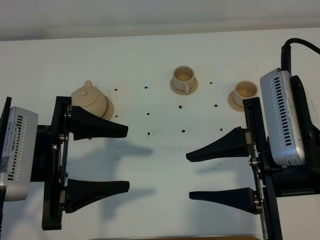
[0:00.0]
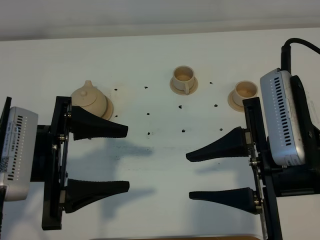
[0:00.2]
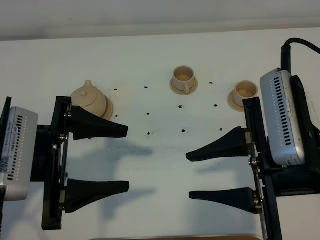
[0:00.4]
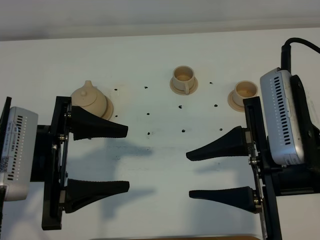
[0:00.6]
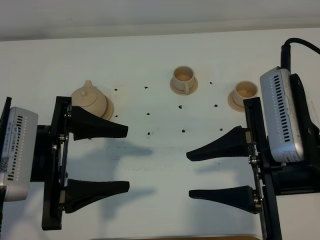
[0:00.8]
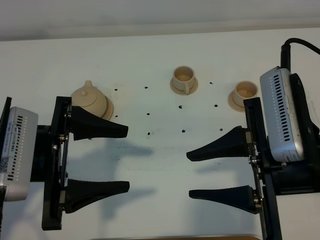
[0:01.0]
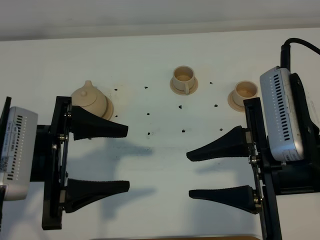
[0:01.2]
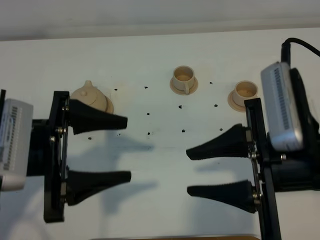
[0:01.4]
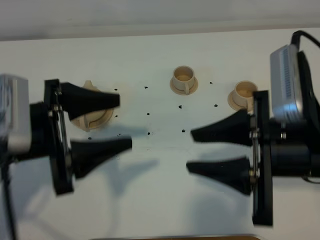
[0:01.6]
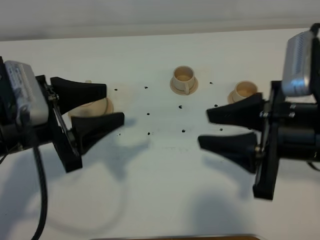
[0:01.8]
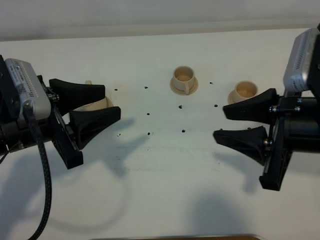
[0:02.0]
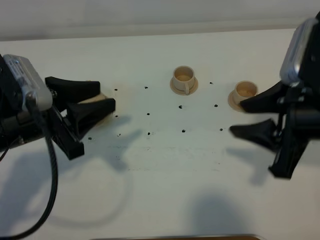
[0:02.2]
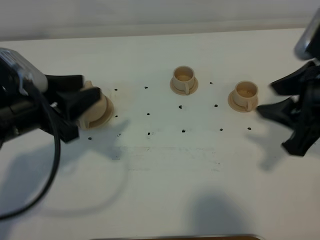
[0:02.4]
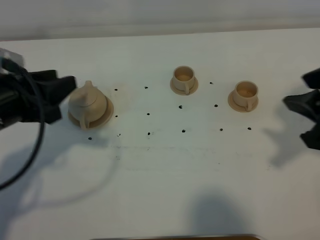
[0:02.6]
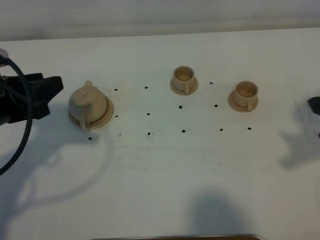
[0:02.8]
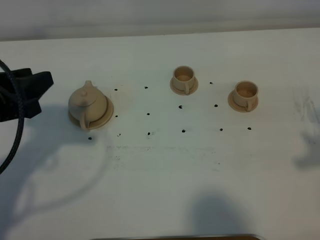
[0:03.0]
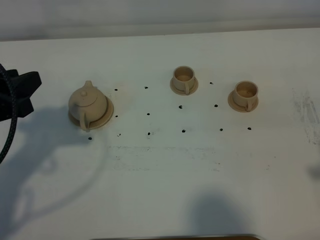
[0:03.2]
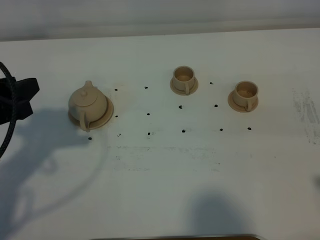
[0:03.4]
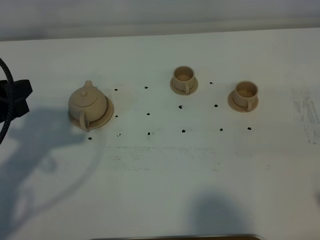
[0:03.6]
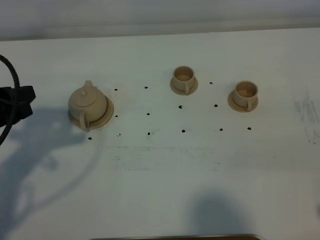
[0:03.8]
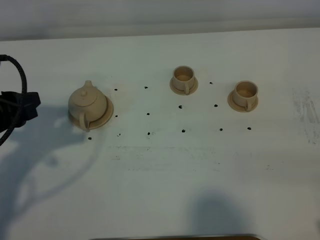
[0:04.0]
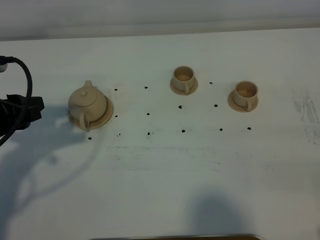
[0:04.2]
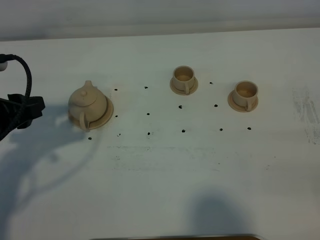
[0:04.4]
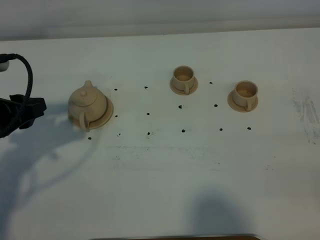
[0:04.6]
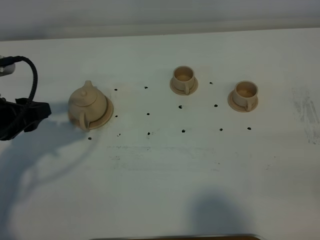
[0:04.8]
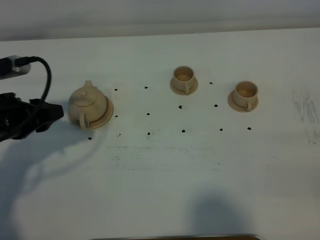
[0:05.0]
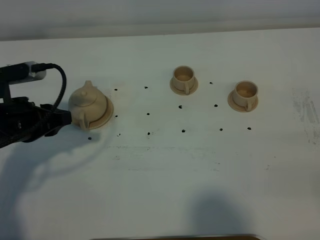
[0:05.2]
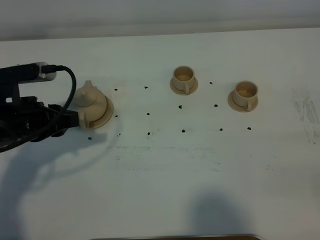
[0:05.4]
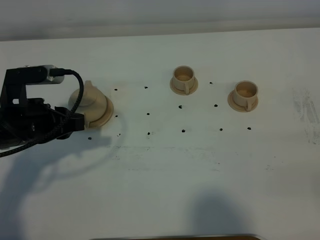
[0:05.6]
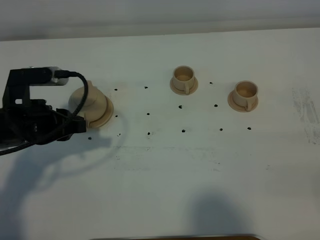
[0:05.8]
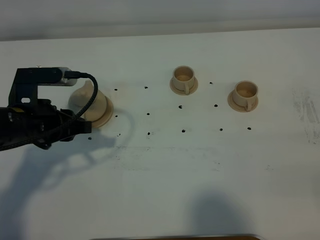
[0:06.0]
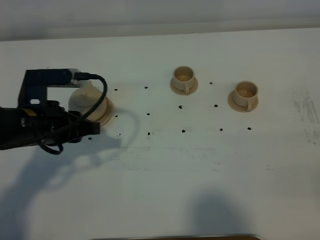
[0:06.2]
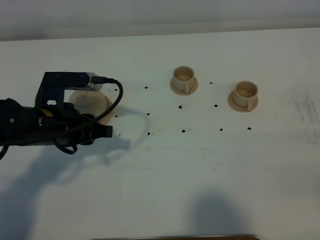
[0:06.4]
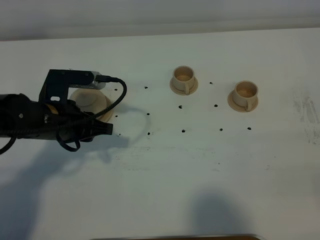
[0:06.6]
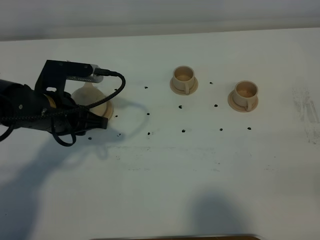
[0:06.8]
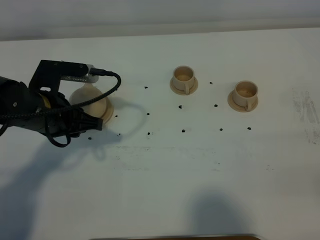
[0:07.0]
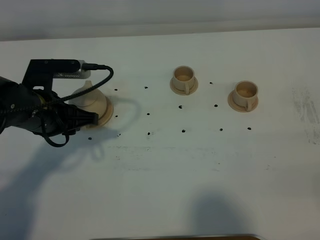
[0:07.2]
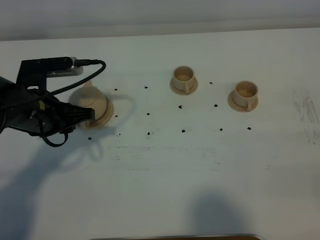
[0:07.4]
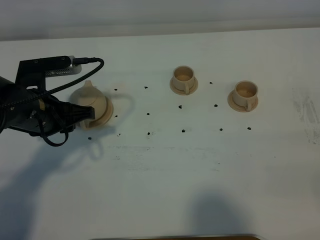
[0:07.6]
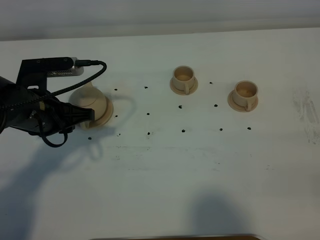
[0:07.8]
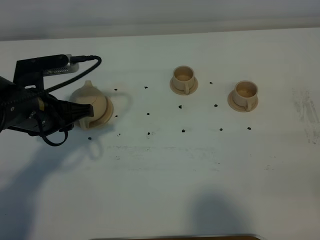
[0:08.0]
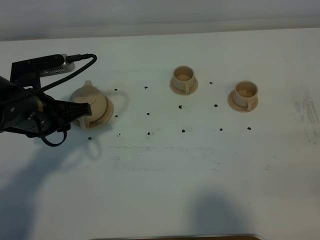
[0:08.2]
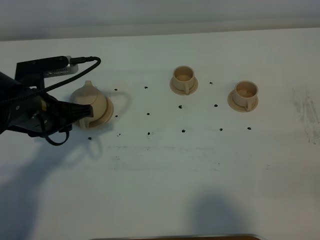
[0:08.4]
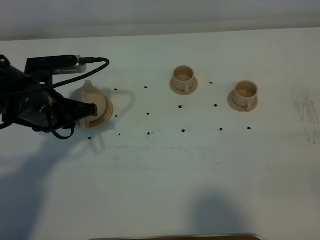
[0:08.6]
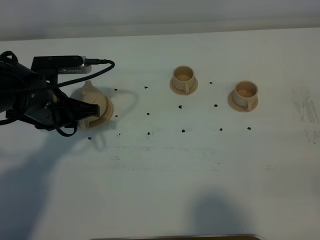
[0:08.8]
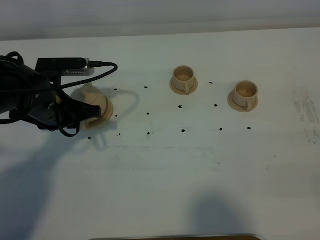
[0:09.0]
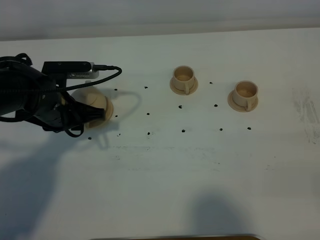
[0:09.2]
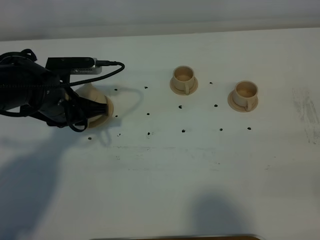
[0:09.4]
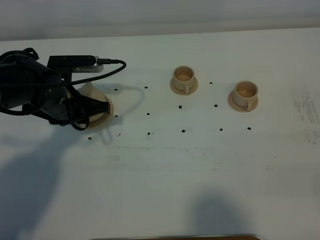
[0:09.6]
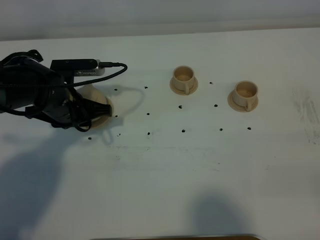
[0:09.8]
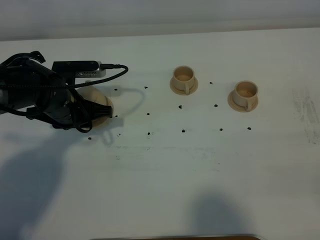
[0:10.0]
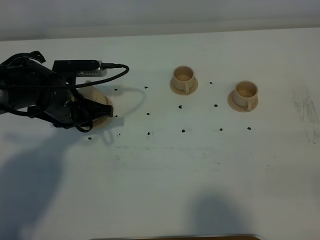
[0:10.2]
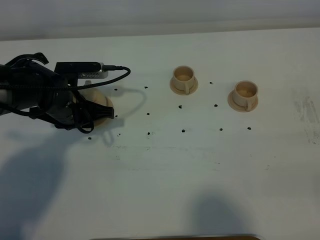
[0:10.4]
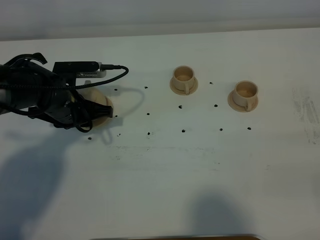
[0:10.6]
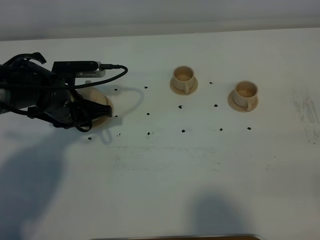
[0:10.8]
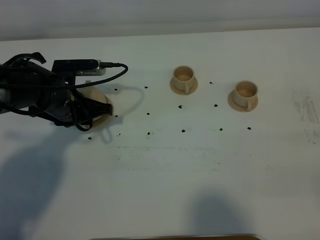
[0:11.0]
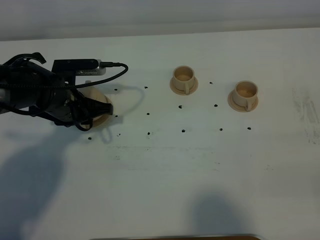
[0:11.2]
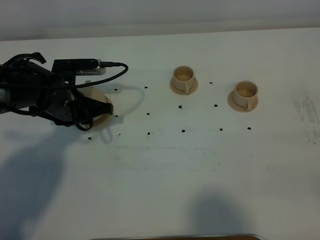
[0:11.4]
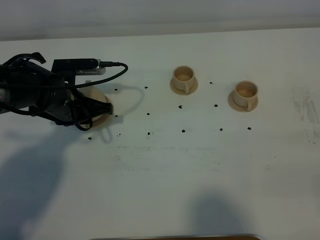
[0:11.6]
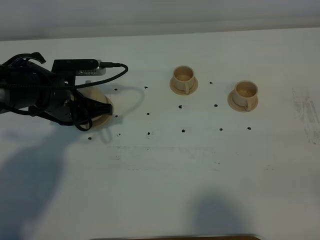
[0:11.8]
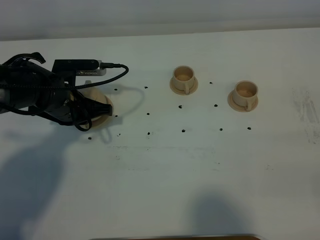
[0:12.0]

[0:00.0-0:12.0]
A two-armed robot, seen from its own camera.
Task of the whole recording: grasp the brown teapot and pour the tea into the two brown teacups one by one, put the brown teapot back in its original place.
0:01.6 to 0:03.0: The left gripper shifts about 10 cm to the left, and closes its fingers. Meanwhile the right gripper heads to the right and upward, covering some 15 cm.
0:04.4 to 0:06.0: The left gripper travels to the right by roughly 5 cm.
0:06.0 to 0:07.6: There are only small adjustments of the grippers.
0:07.6 to 0:09.0: The grippers move only a little.
0:09.0 to 0:10.4: The grippers move only a little.
0:10.4 to 0:12.0: The left gripper closes its fingers.

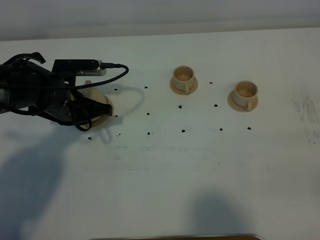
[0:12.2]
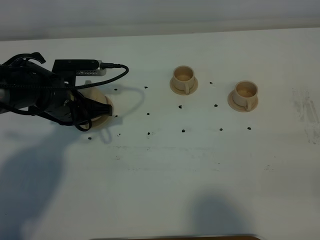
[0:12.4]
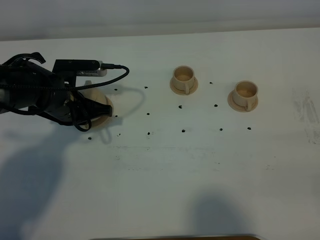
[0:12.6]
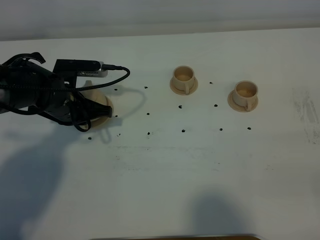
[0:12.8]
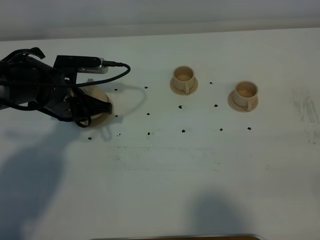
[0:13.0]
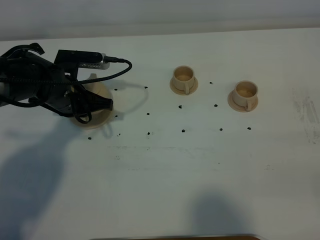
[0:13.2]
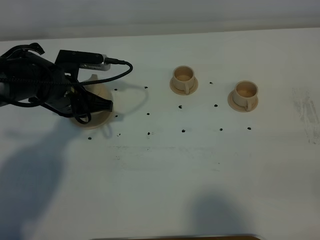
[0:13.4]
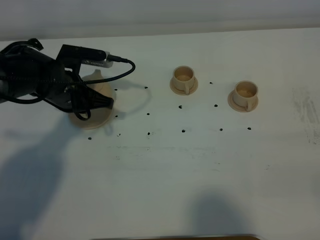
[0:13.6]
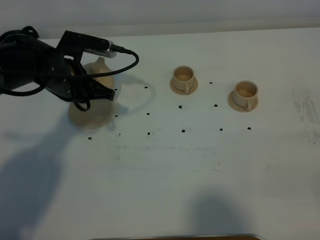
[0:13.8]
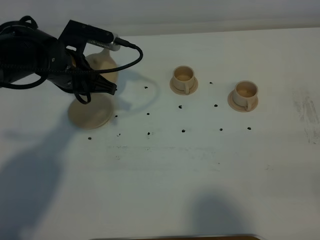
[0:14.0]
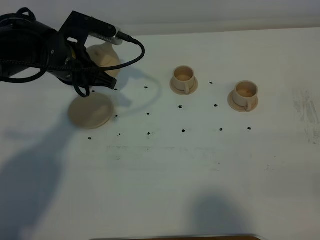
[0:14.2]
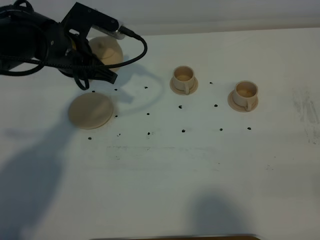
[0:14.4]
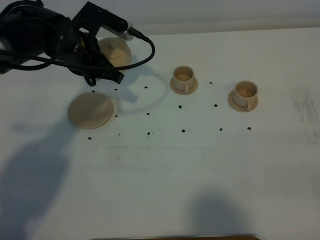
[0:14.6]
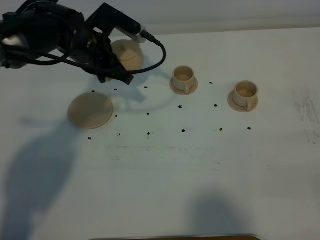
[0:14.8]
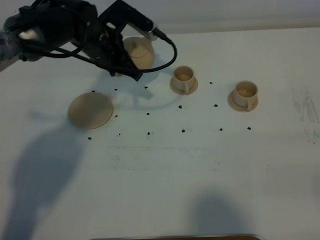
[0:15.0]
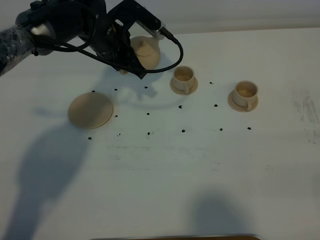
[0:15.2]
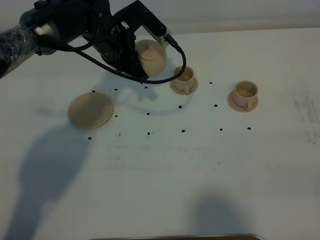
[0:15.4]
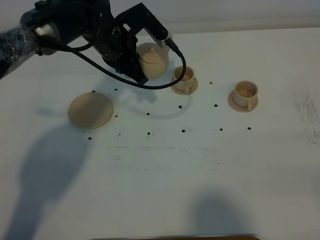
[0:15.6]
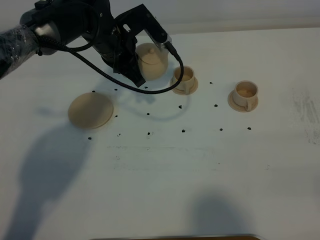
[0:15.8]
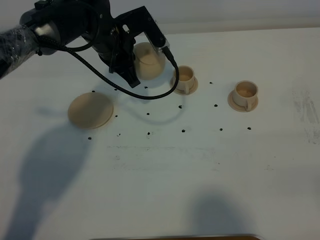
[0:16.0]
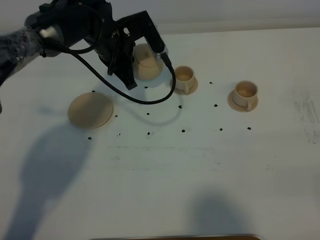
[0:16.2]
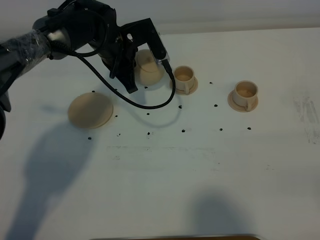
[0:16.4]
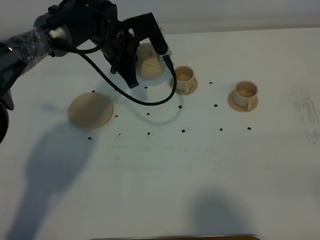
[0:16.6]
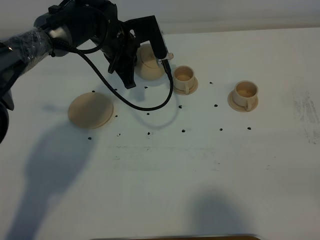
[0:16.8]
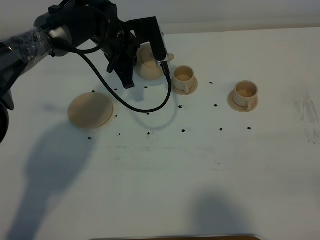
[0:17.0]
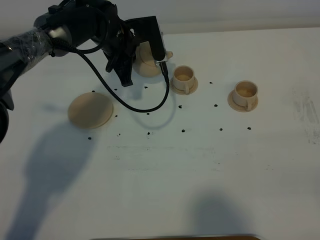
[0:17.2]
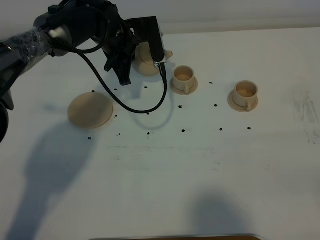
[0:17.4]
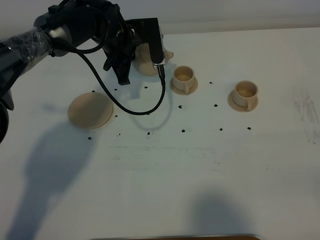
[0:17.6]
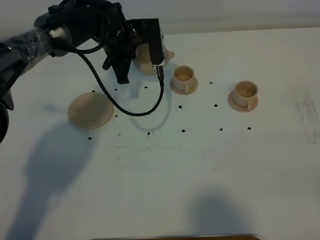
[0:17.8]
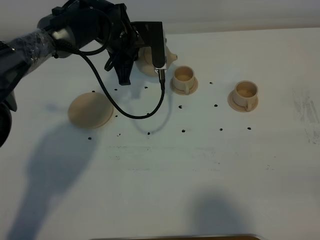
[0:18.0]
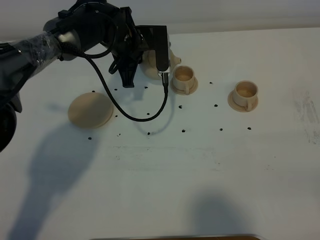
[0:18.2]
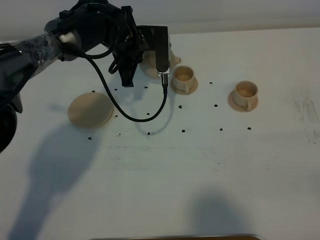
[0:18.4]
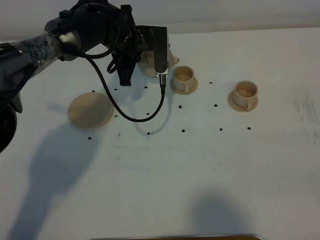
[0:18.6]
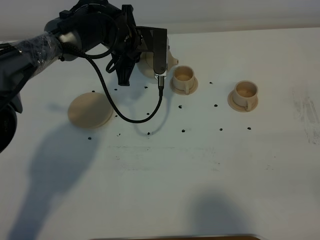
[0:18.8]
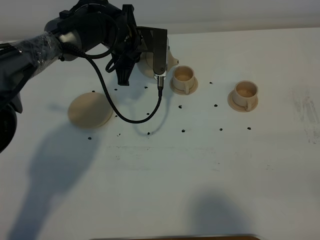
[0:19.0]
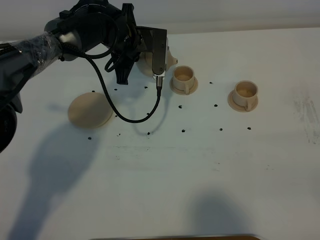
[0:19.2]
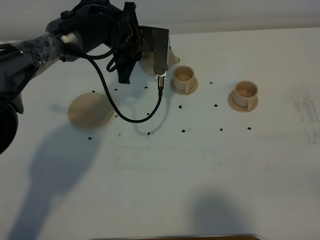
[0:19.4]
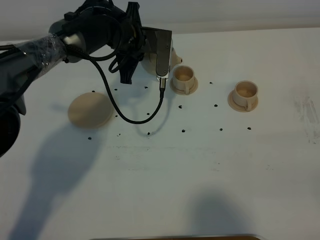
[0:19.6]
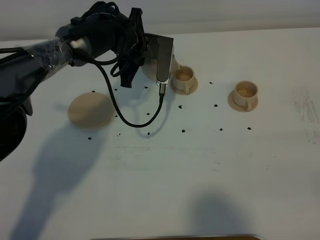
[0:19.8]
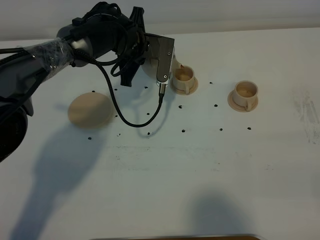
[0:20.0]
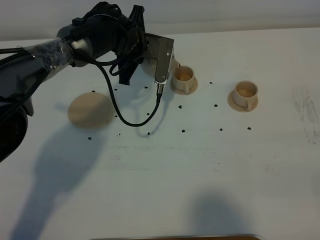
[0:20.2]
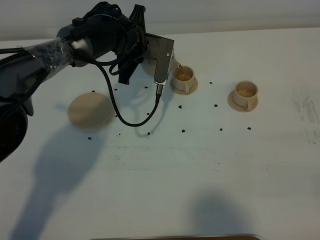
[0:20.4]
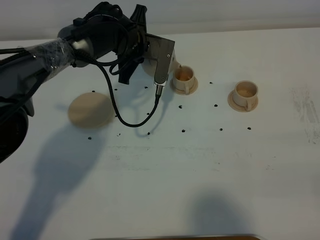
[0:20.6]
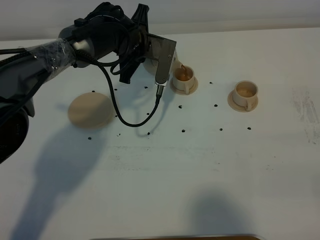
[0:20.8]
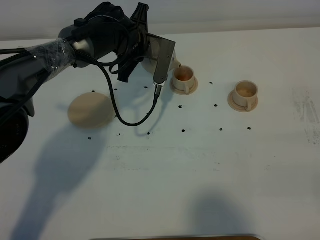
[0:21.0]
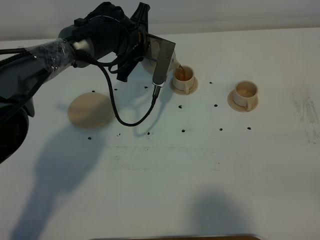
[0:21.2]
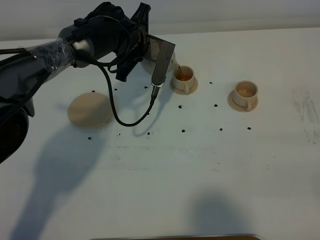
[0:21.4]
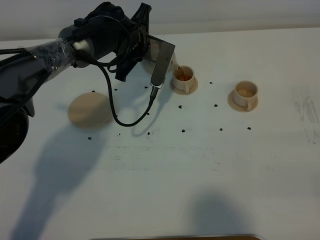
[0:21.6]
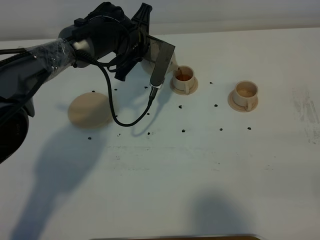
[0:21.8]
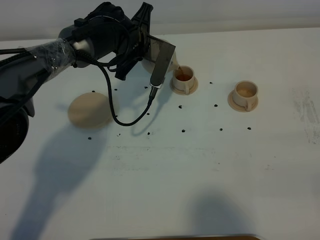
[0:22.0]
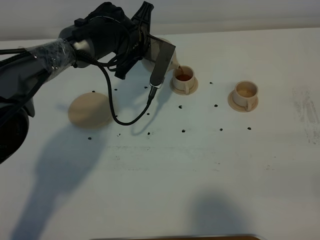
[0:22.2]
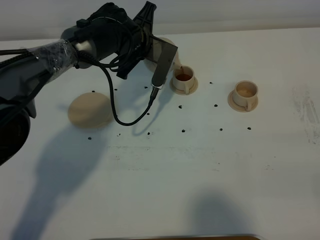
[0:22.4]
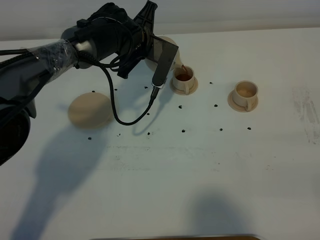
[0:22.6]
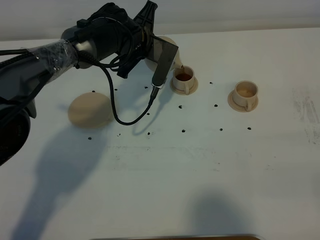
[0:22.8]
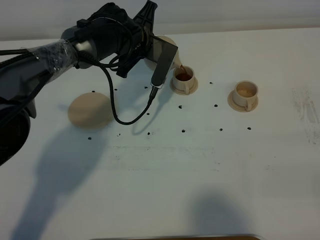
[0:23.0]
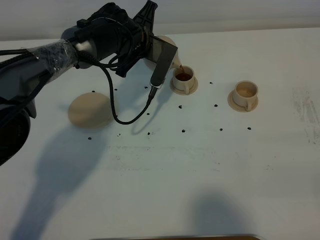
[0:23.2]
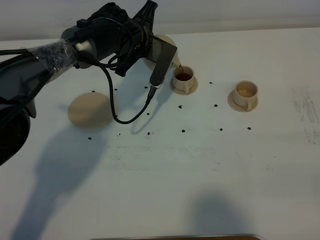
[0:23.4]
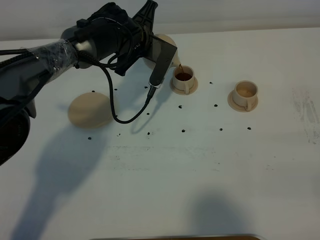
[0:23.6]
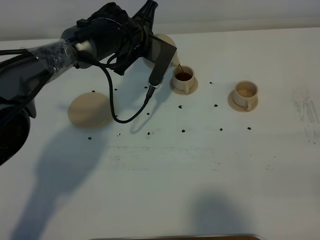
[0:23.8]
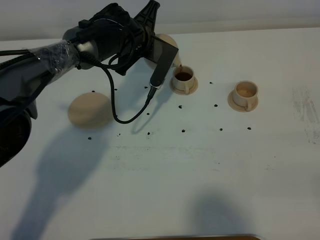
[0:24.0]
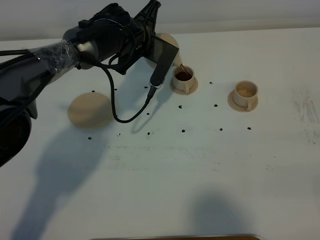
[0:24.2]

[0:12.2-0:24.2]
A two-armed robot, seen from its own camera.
Task of the whole recording: grasp the brown teapot and pour the tea into the two brown teacups one by one, put the brown teapot back in its original place.
0:12.2 to 0:13.8: The left gripper travels upward by approximately 5 cm.
0:13.8 to 0:15.2: The left gripper moves to the right and forward, some 10 cm.
0:18.2 to 0:19.8: The grippers make only small movements.
0:19.8 to 0:22.6: There are only small adjustments of the grippers.
0:22.6 to 0:24.2: The grippers make only small movements.
